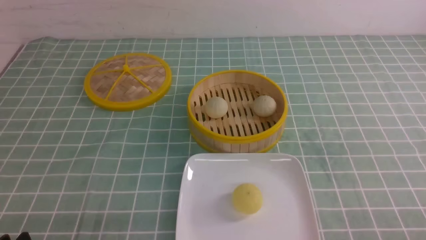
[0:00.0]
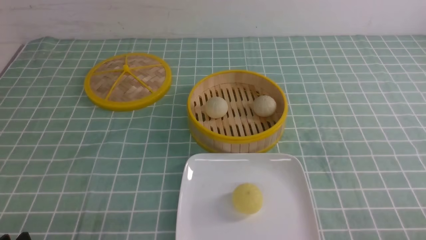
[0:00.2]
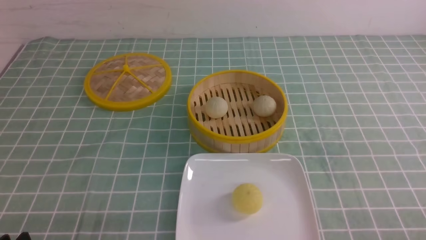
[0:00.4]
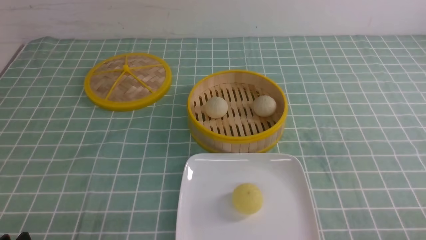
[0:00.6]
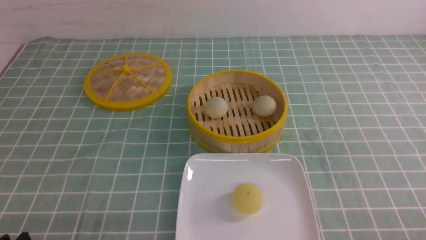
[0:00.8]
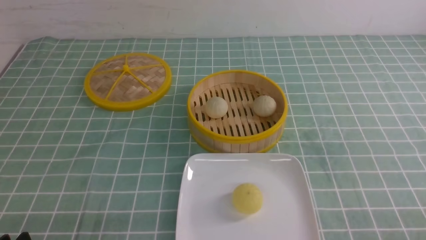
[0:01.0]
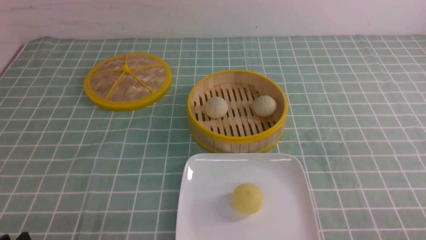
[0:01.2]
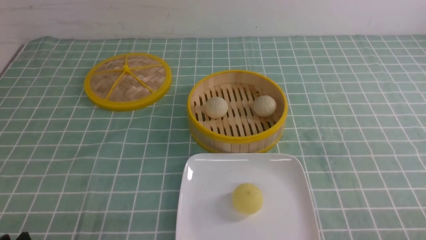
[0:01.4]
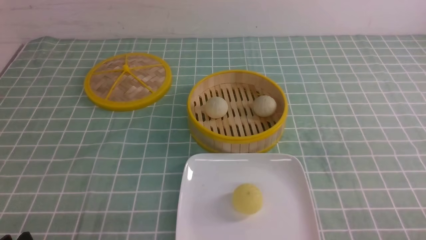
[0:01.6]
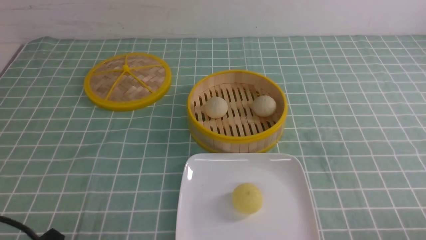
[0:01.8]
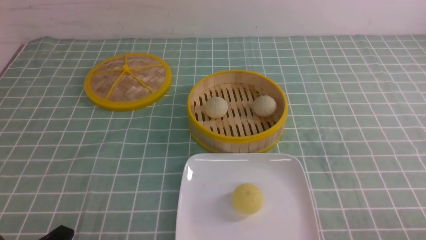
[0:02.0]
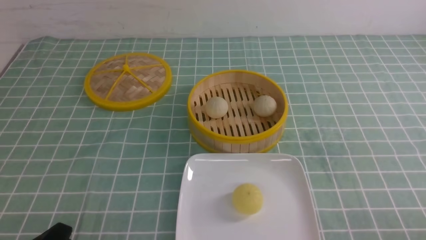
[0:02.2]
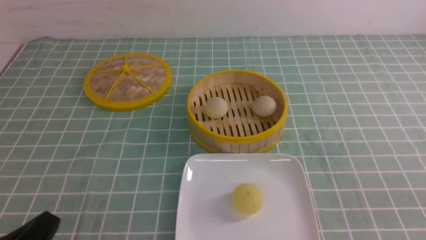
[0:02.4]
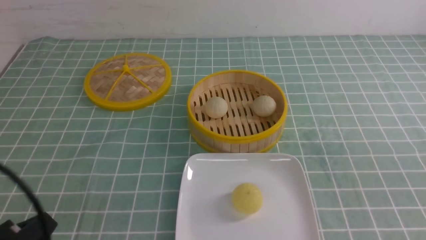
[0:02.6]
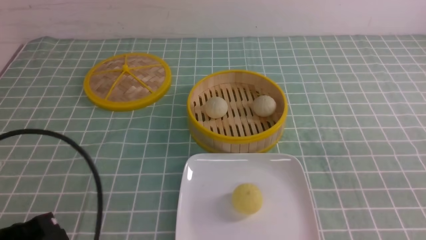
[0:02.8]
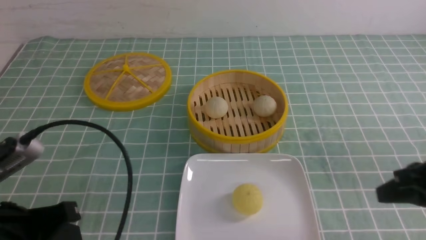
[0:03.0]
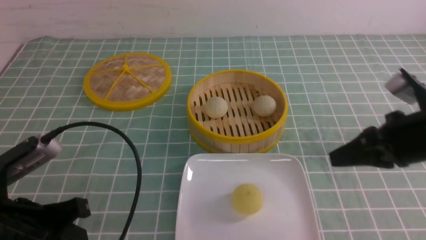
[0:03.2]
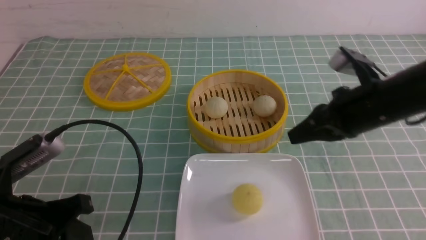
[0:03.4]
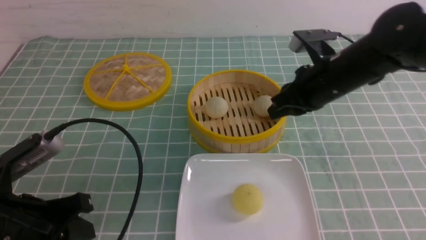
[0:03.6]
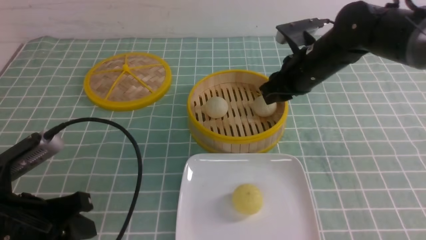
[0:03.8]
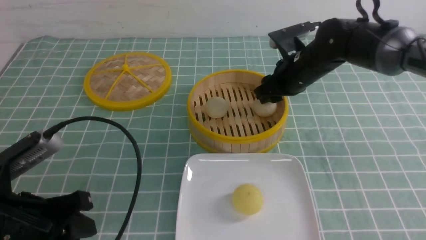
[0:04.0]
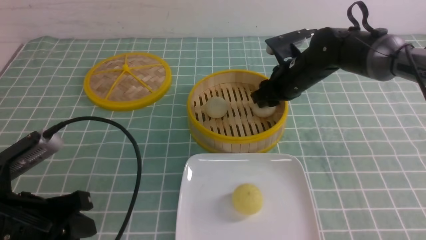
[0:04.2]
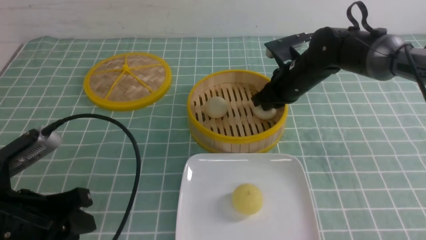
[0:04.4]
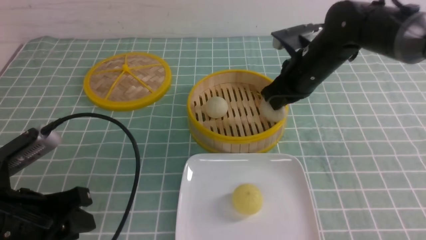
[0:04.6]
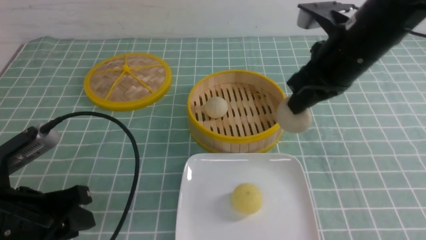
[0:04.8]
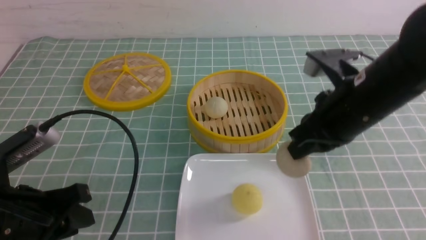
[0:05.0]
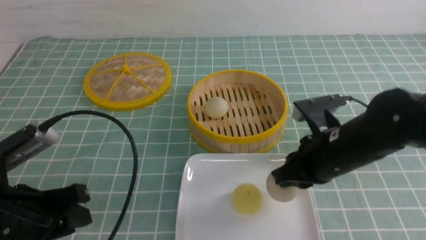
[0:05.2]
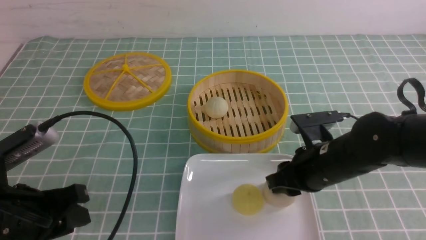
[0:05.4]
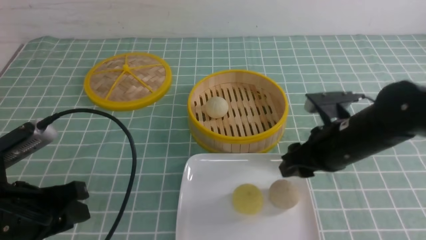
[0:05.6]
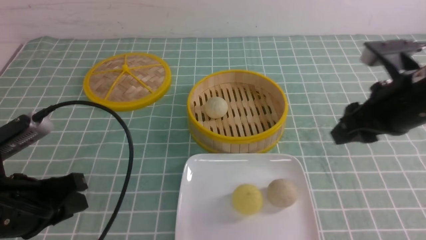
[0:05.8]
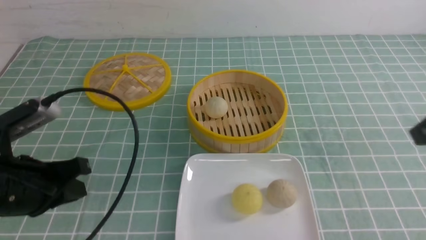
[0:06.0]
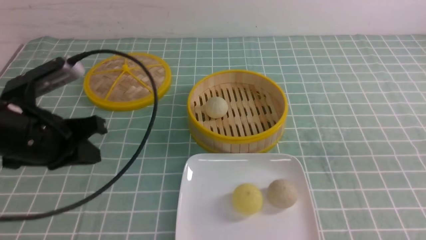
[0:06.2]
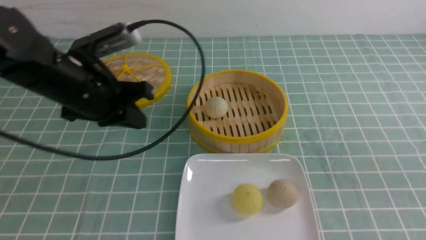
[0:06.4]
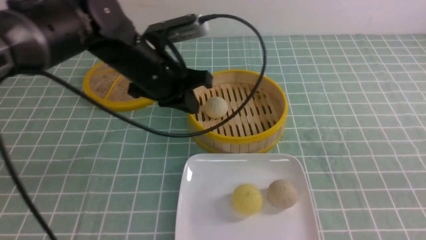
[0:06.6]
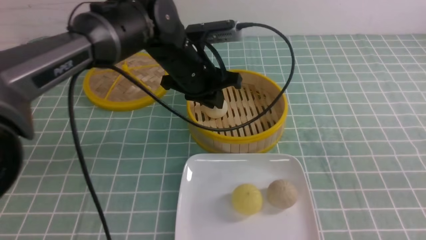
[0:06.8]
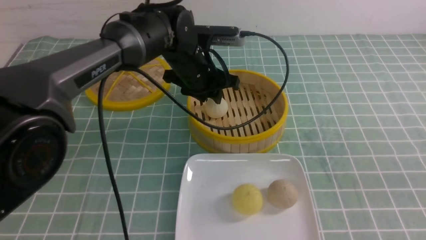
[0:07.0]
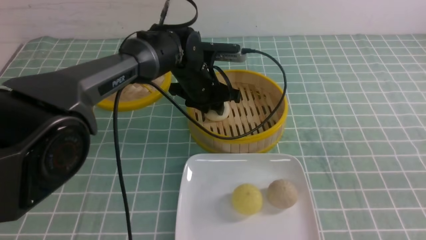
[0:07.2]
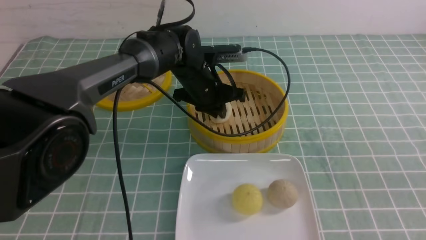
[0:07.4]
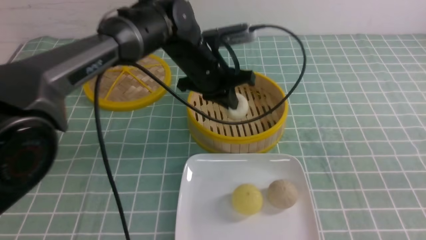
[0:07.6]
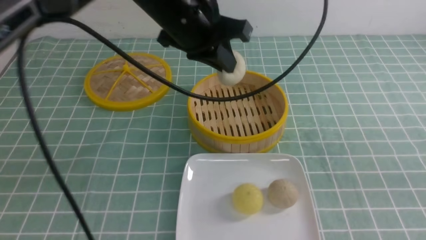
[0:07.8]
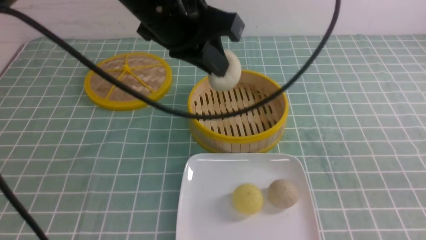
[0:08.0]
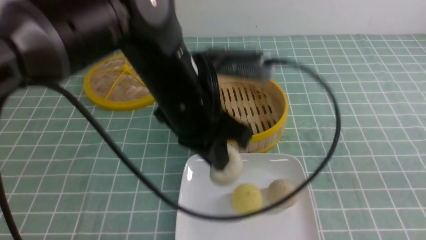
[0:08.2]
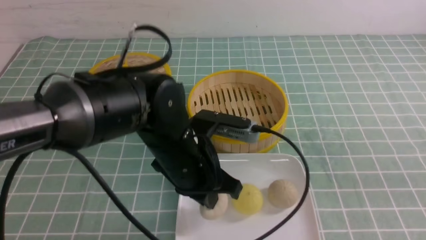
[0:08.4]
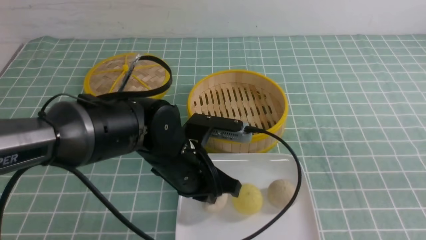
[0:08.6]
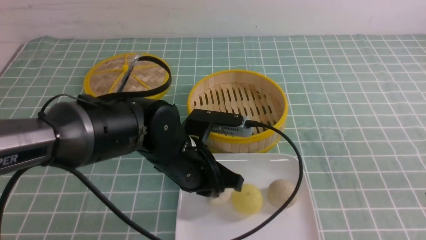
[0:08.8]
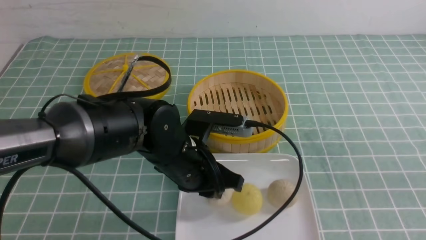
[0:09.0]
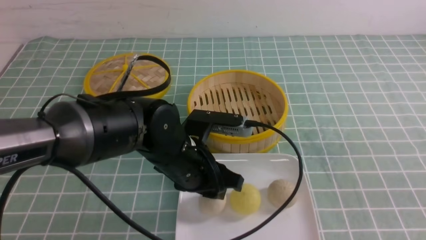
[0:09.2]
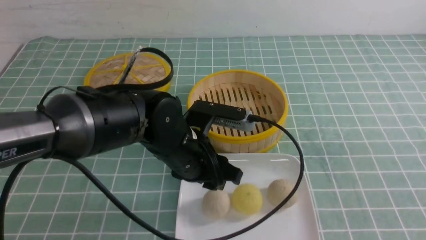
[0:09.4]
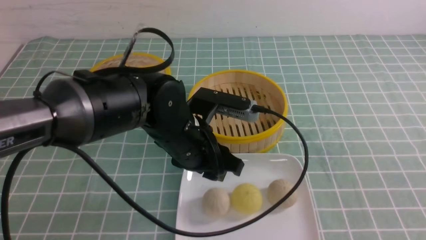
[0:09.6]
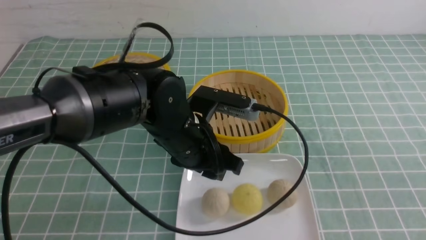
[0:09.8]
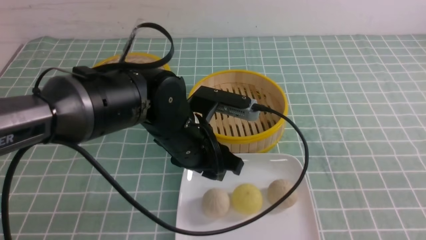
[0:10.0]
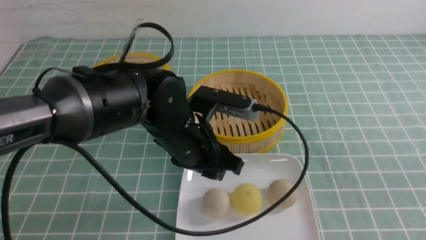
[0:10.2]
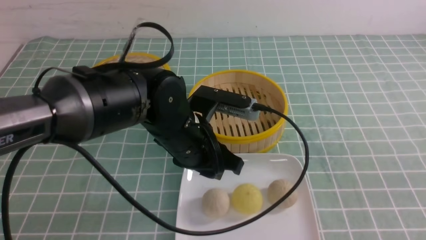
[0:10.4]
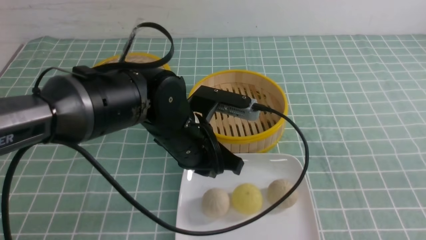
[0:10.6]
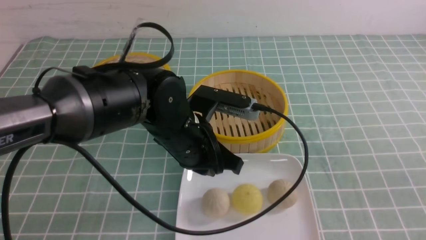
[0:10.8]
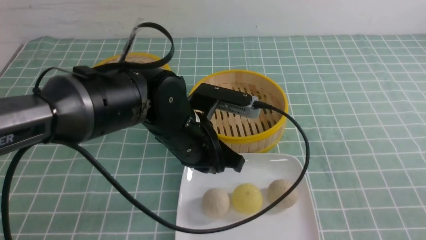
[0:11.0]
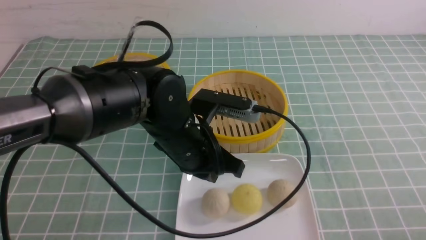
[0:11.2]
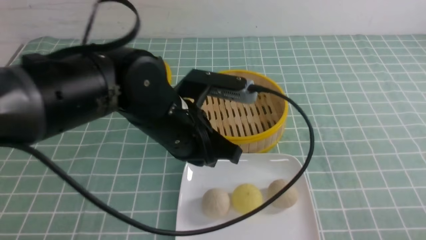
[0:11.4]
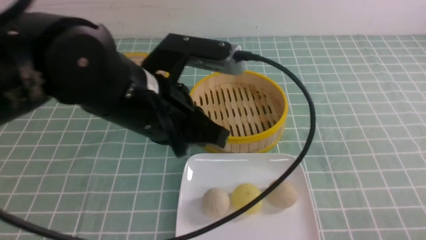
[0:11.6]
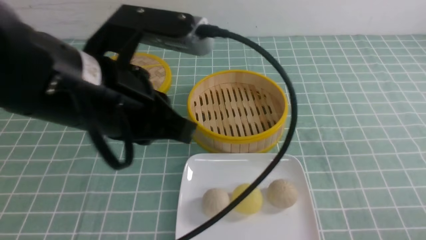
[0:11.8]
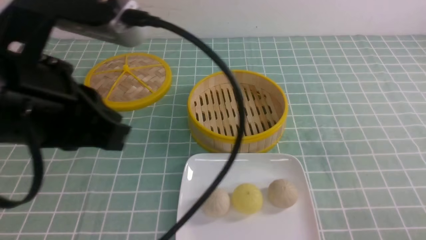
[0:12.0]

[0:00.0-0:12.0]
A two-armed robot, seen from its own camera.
Step, 0:00.0 to 0:04.4: use the right arm to grab the steamed stuffed bun that is closest to it.
Step, 0:04.6 to 0:05.6: use the right arm to put the steamed stuffed bun into the plate.
Step, 0:05.8 to 0:07.4: use the left arm to grab the steamed stuffed bun that is closest to it.
Step, 0:07.6 to 0:09.4: use the left arm to put the steamed stuffed bun into the plate.
0:01.6 to 0:03.0: The right gripper heads forward and upward, covering approximately 15 cm, and closes. Meanwhile the left gripper moves upward and forward, about 10 cm, and closes up.
0:03.0 to 0:04.4: The left gripper opens up, while the right gripper is displaced forward and to the left by approximately 25 cm, and opens, then closes again.
0:04.4 to 0:06.0: The left gripper changes place by roughly 5 cm, and closes up; the right gripper moves backward, to the right and upward, approximately 30 cm, and opens, then closes once more.
0:06.0 to 0:07.6: The left gripper moves to the right and forward, roughly 30 cm, and opens and closes again; the right gripper moves backward and downward, some 10 cm, and closes its fingers.
0:07.6 to 0:09.0: The left gripper is displaced backward and downward by roughly 15 cm, and opens.
0:09.0 to 0:10.4: The right gripper shifts roughly 5 cm backward. Meanwhile the left gripper opens, then closes again.
0:10.4 to 0:12.0: The left gripper travels upward, backward and to the left by some 25 cm, and closes up; the right gripper heads downward, covering some 10 cm.

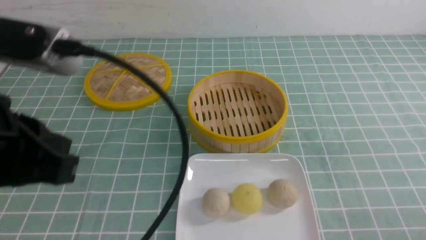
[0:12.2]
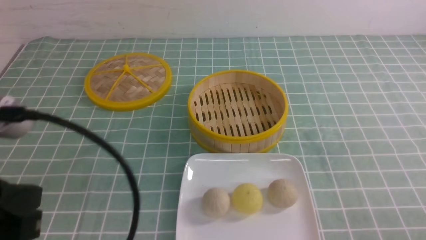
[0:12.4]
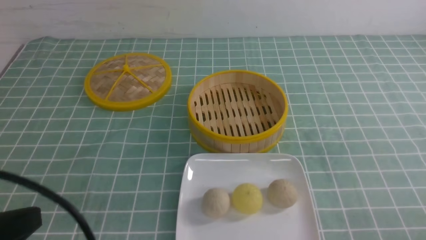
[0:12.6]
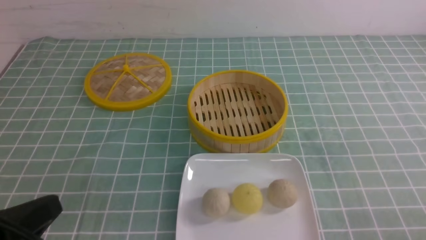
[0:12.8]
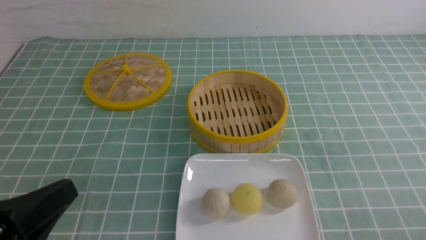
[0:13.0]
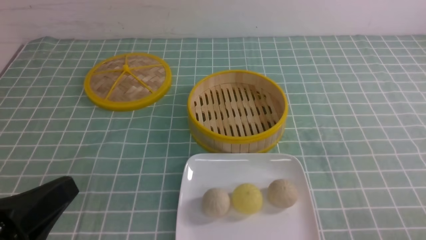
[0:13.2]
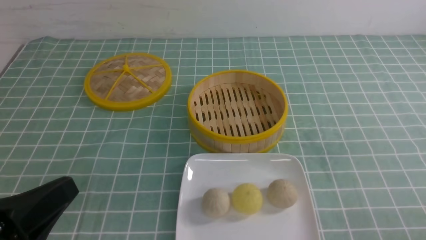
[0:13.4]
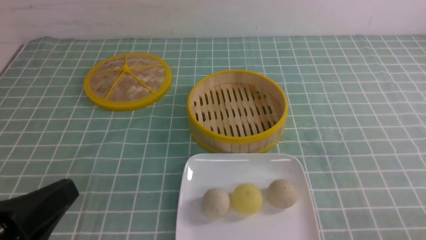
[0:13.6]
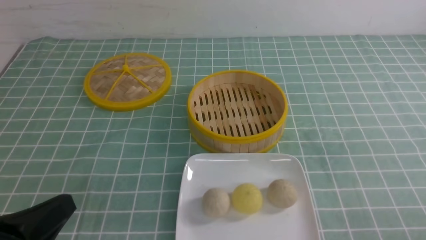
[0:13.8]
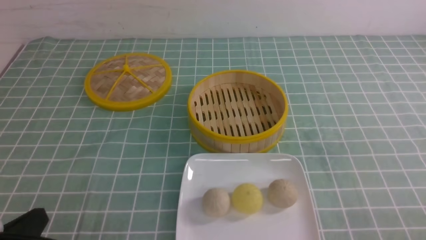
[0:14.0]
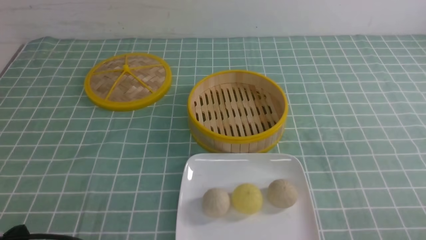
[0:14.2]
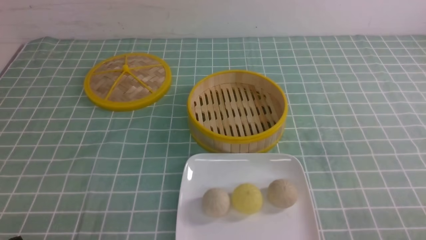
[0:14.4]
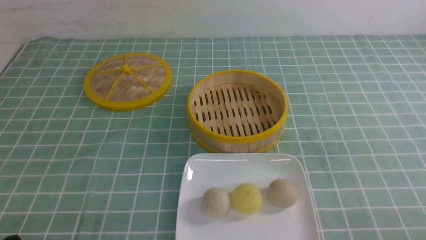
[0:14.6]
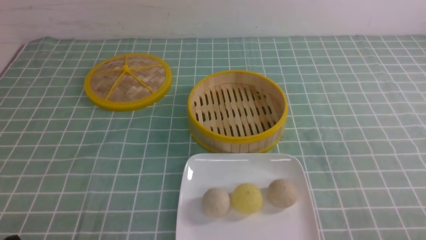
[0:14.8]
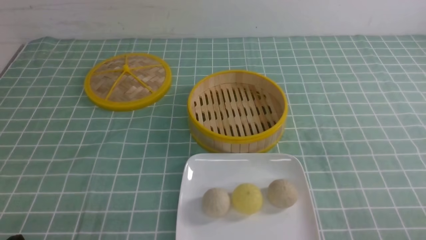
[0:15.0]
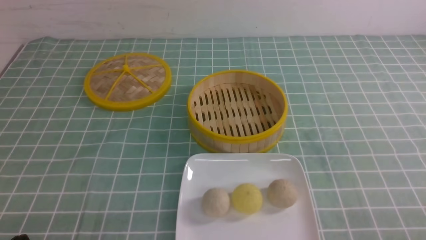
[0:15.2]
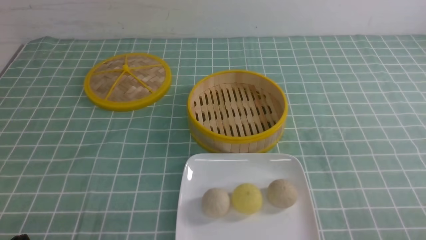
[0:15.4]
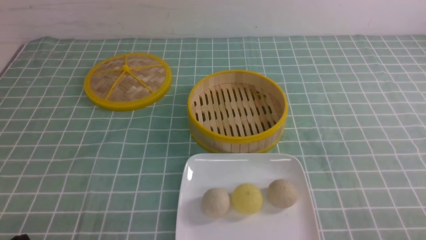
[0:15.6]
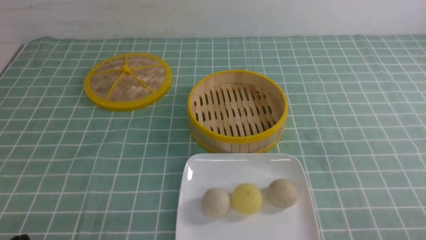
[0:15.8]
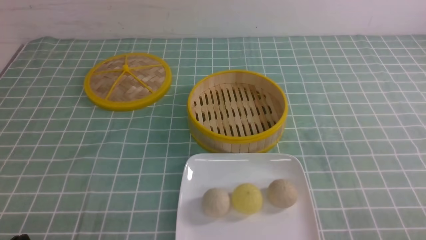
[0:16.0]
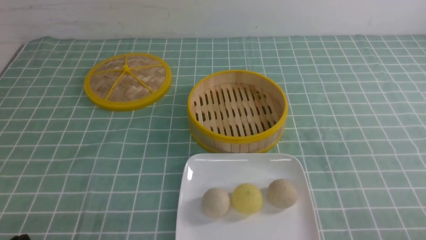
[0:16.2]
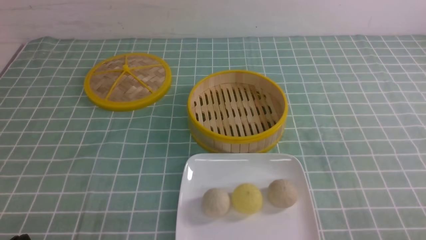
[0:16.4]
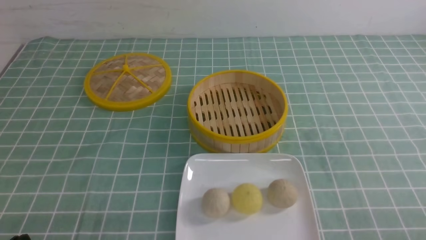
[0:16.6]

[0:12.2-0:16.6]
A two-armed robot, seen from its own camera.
0:12.2 to 0:13.6: The left gripper shifts roughly 10 cm downward and backward.
0:13.6 to 0:15.2: The left gripper is displaced downward by approximately 10 cm.
0:15.2 to 0:16.6: Neither gripper changes place.
